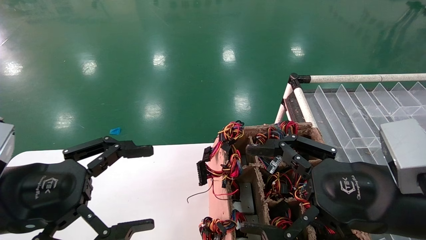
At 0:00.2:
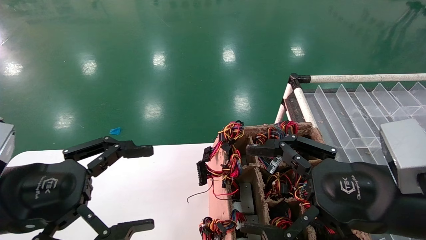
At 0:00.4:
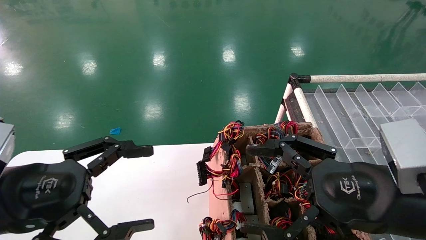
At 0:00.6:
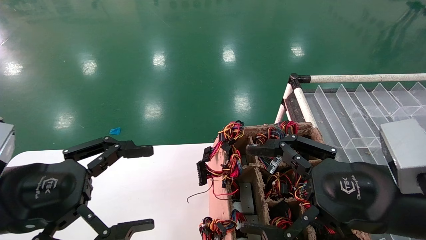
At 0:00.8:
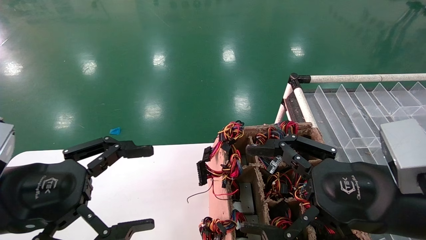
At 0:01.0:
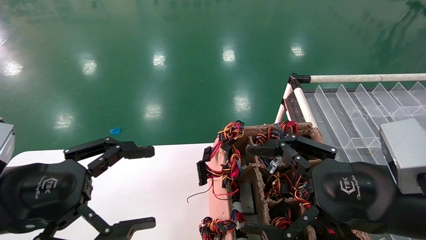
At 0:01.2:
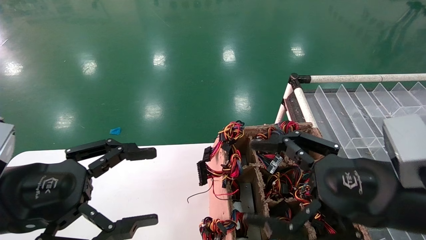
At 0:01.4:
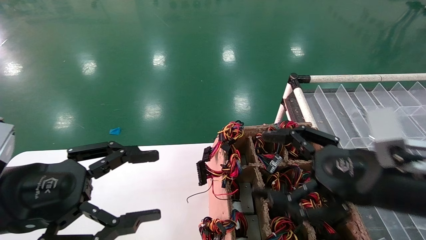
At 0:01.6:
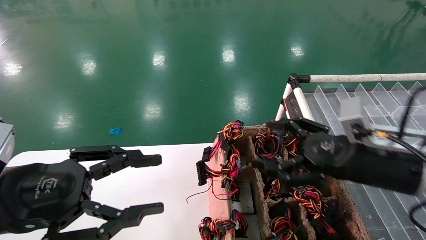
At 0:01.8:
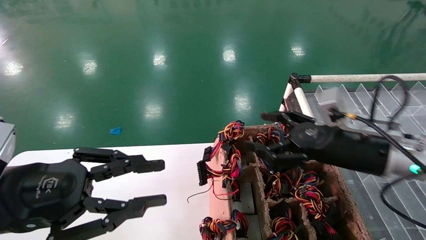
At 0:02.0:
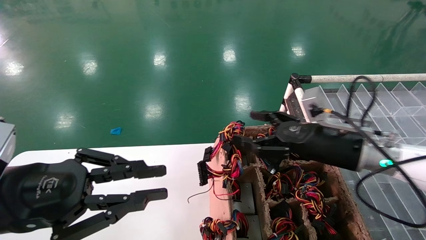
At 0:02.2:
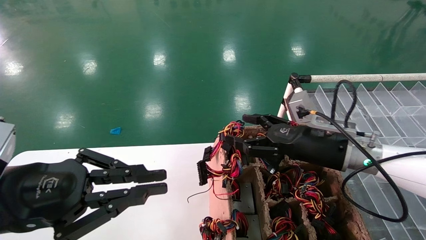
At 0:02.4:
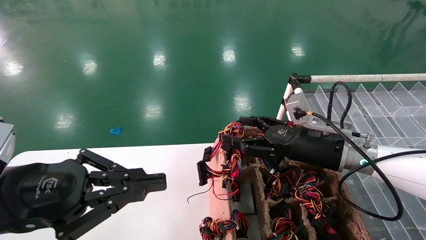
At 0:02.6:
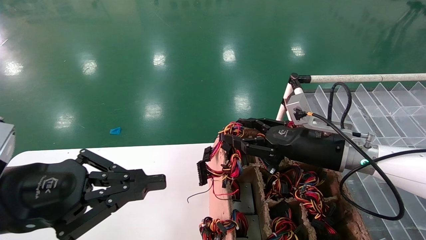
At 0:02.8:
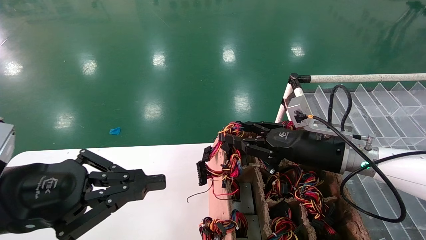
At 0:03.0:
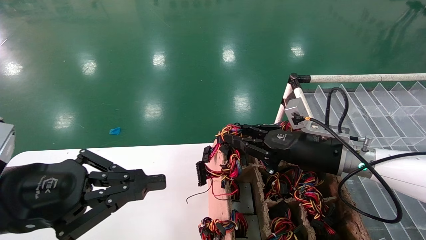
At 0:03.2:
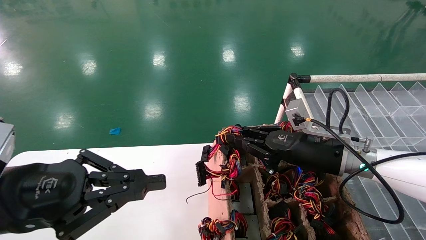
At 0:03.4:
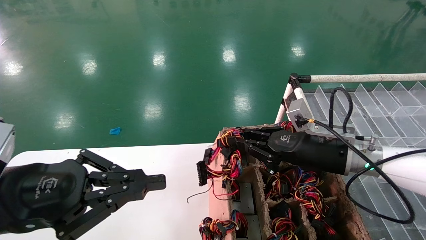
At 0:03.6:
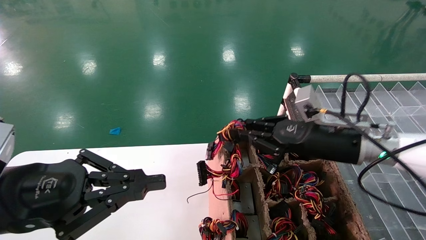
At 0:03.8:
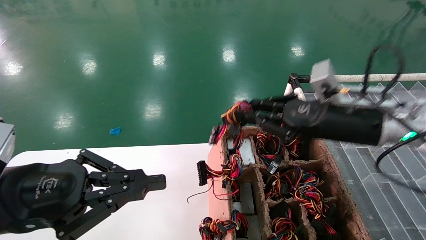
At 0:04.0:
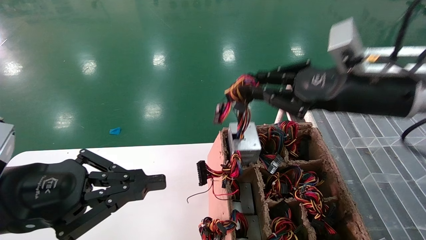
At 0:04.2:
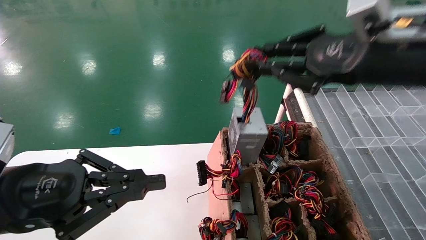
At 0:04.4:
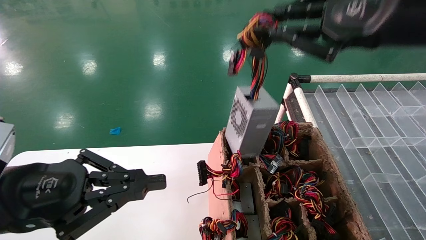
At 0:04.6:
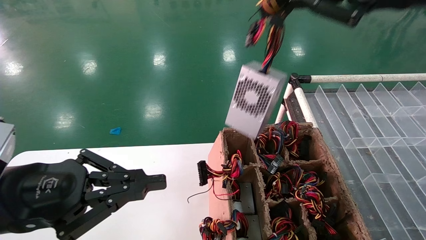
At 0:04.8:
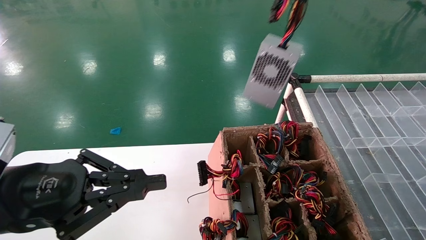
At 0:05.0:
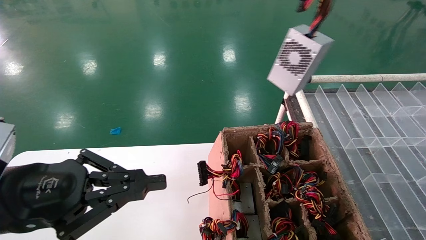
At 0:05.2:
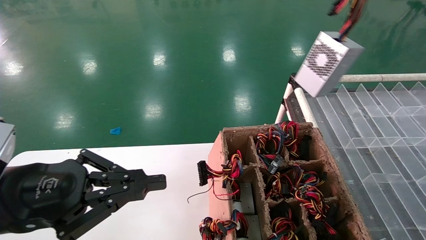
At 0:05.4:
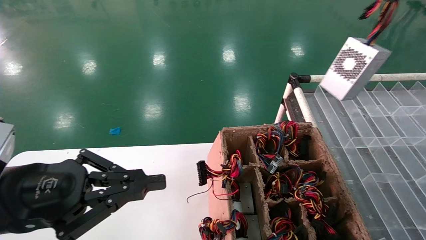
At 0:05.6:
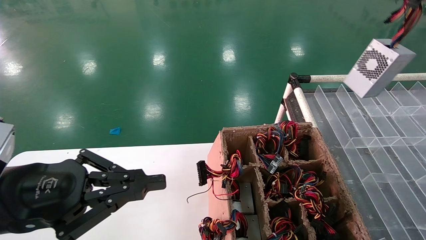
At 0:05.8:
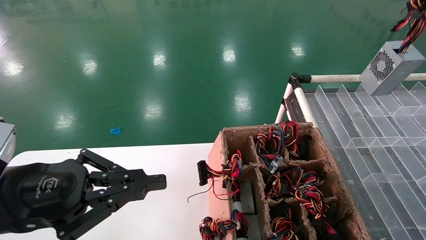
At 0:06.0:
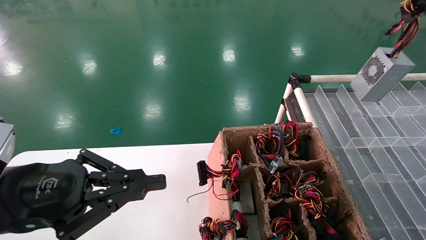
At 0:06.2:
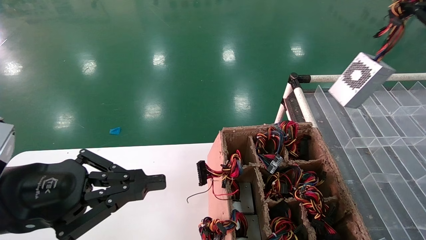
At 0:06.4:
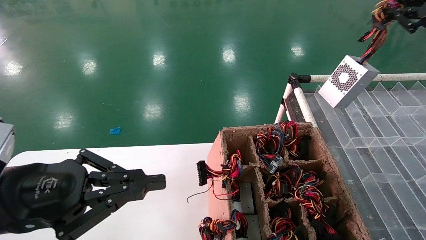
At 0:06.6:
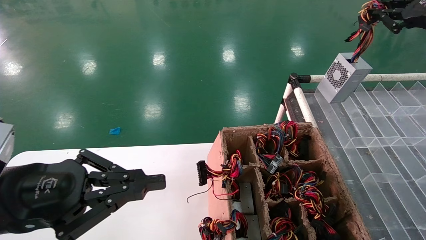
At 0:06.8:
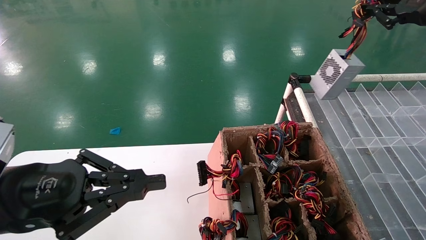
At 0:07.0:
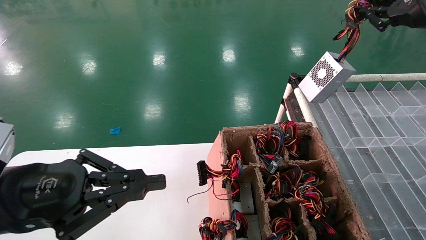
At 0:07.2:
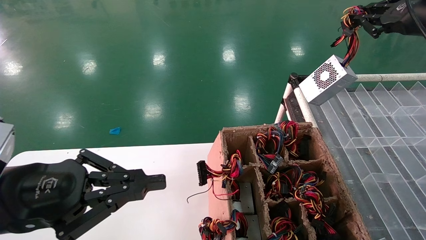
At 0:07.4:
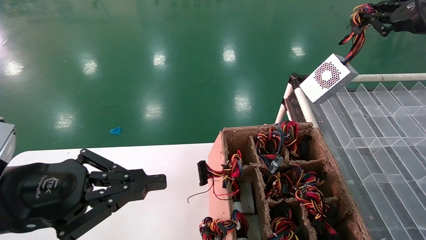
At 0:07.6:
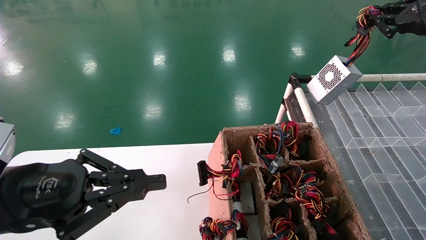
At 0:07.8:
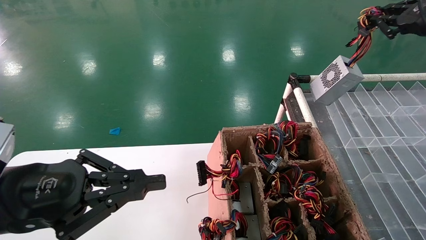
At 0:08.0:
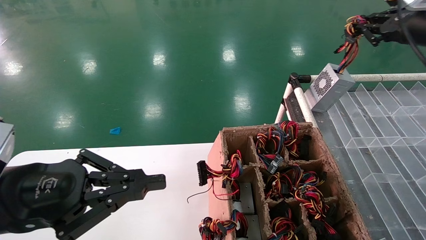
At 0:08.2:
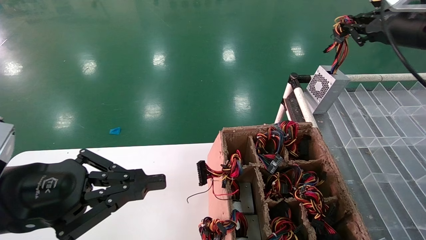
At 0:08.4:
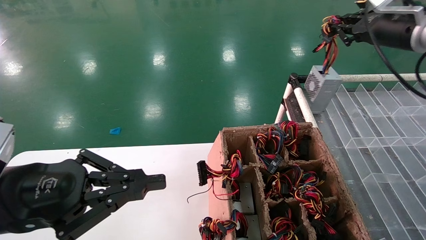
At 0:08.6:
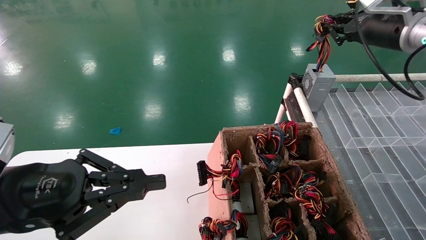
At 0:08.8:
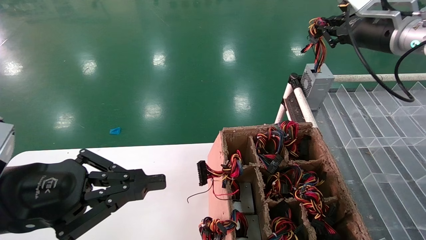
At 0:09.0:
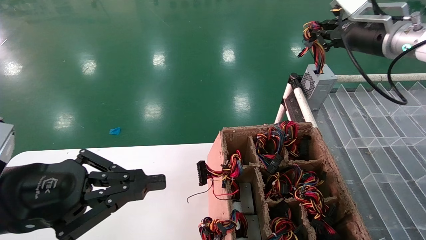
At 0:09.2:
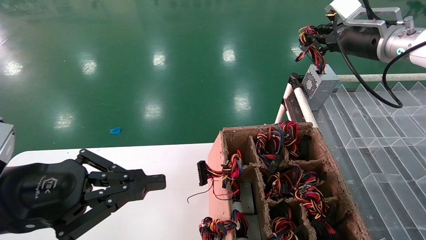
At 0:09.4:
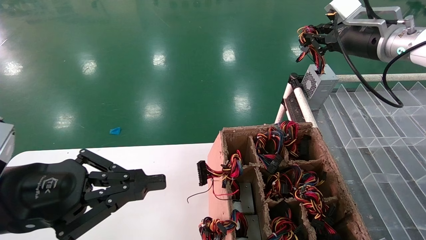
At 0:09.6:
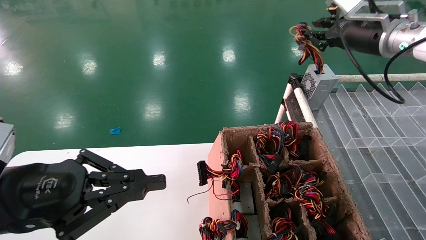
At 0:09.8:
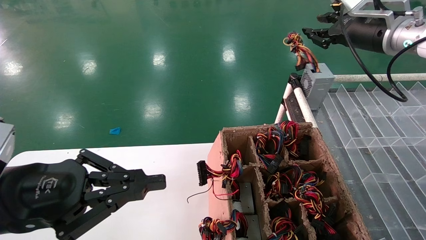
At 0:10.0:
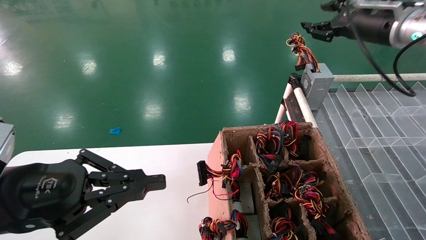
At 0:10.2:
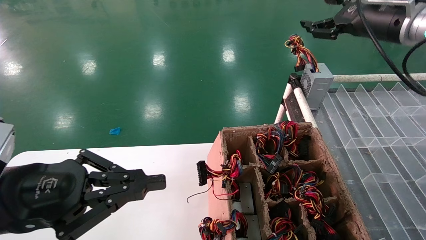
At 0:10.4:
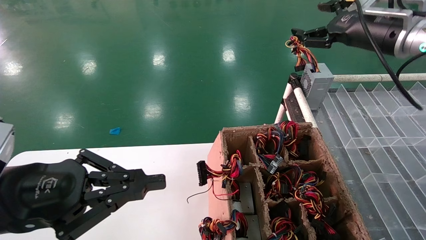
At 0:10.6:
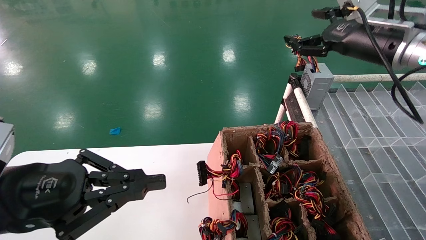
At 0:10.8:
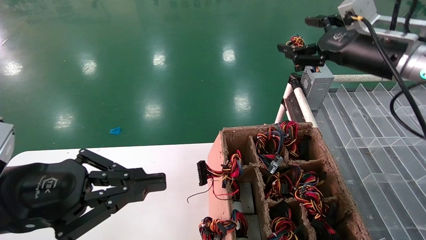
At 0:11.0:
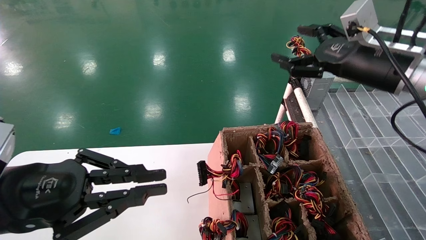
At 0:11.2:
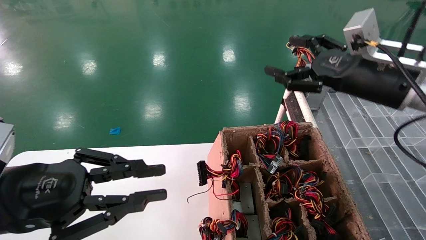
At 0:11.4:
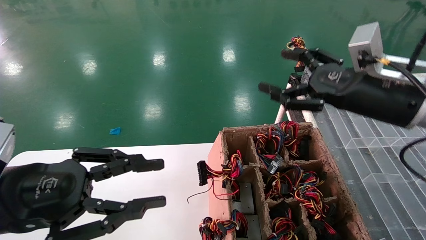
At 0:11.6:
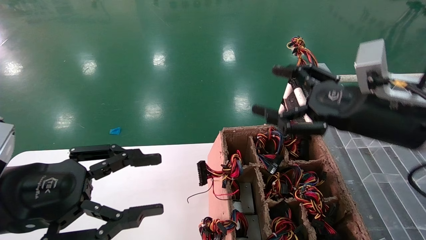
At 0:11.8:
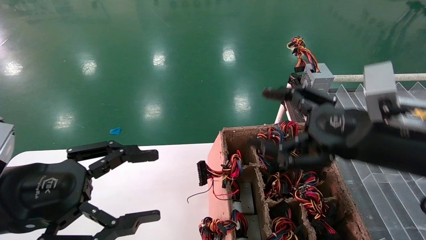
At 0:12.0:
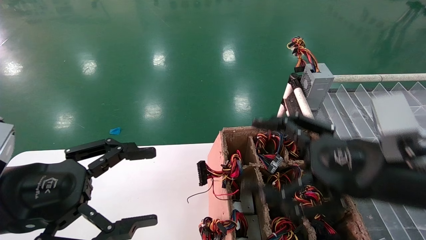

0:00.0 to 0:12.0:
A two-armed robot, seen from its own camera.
Step, 0:01.4 to 0:03.4: Grab the main unit power supply from the containment box.
Step, 0:03.6 to 0:09.4: Place the main unit power supply in the designated area.
0:00.0 to 0:01.6: The right gripper moves forward, some 10 cm.
0:01.6 to 0:03.0: The right gripper heads forward, covering approximately 10 cm, and closes its fingers, while the left gripper closes.
0:03.0 to 0:04.4: The right gripper heads upward and backward, covering some 30 cm.
0:04.4 to 0:06.0: The right gripper moves to the right, some 20 cm.
0:06.0 to 0:07.6: The right gripper heads forward, covering roughly 5 cm.
0:07.6 to 0:09.0: The right gripper is displaced to the left and forward by approximately 10 cm.
0:09.0 to 0:10.4: The right gripper opens up.
0:10.4 to 0:12.0: The right gripper travels backward and downward by approximately 25 cm, while the left gripper opens up.

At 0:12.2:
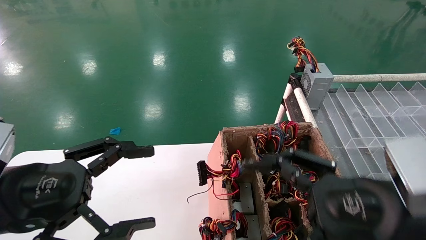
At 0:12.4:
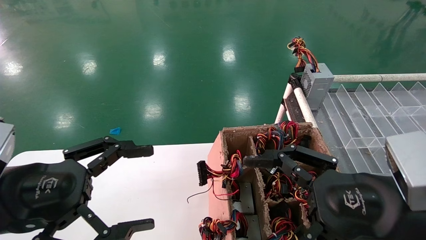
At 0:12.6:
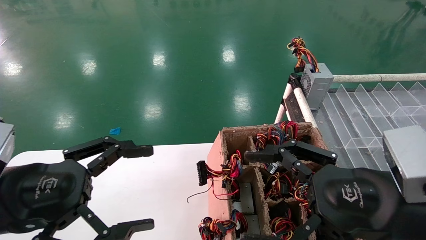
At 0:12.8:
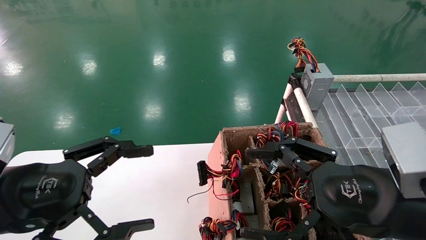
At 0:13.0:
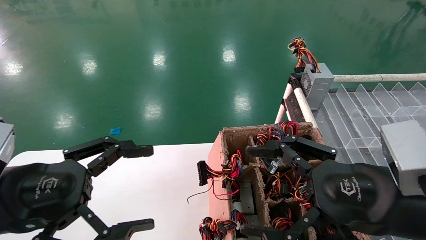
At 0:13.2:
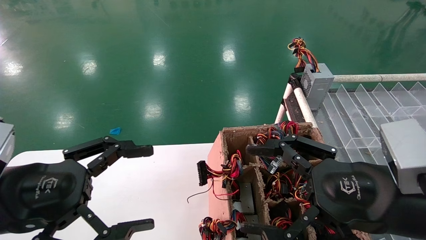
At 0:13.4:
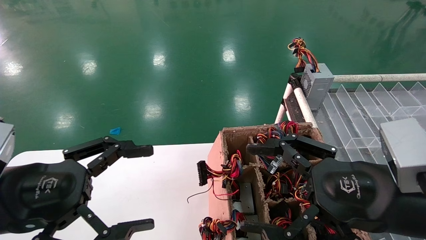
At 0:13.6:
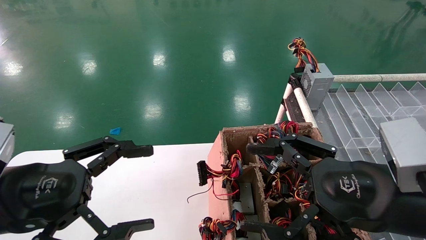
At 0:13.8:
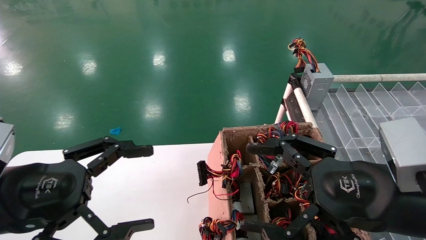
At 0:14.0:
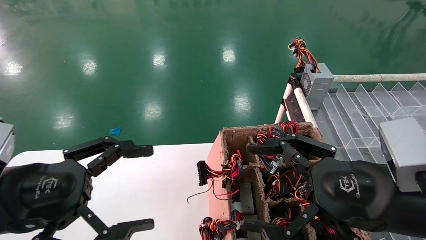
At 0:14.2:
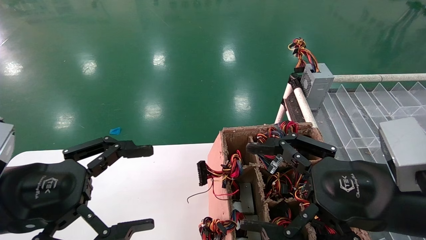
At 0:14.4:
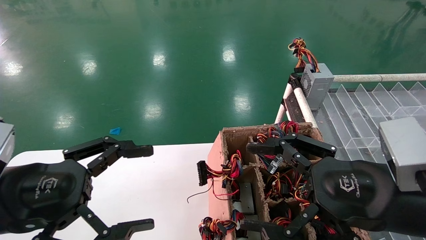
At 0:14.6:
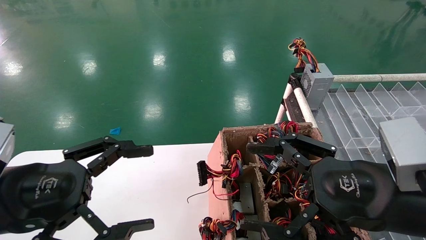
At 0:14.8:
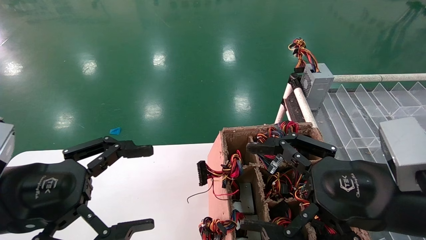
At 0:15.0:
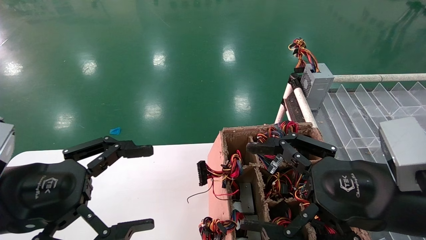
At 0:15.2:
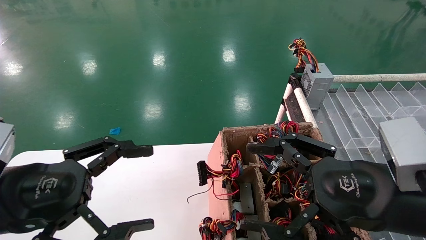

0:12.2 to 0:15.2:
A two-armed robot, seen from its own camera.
0:12.2 to 0:15.2: Neither gripper changes place.
